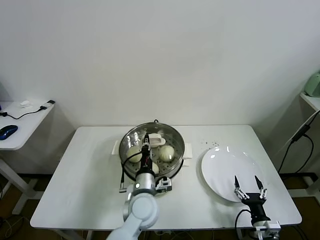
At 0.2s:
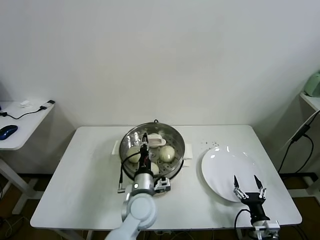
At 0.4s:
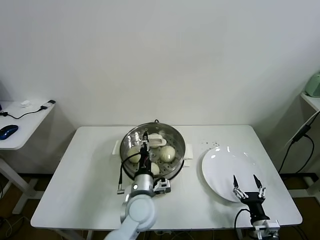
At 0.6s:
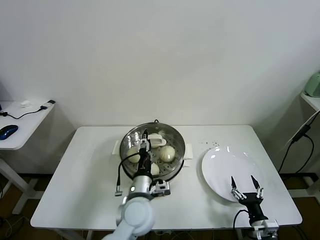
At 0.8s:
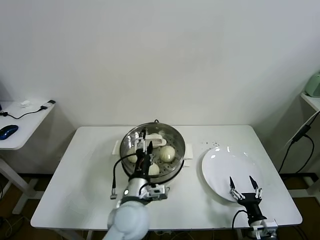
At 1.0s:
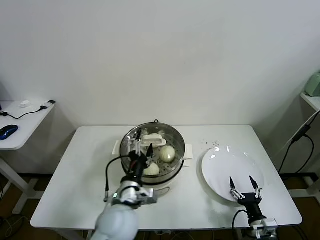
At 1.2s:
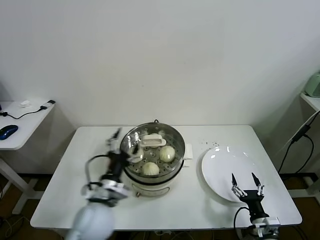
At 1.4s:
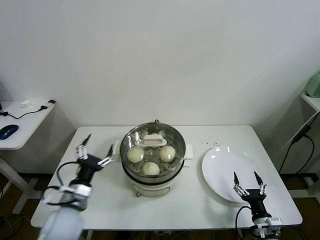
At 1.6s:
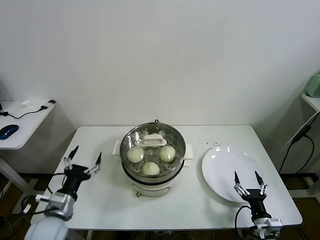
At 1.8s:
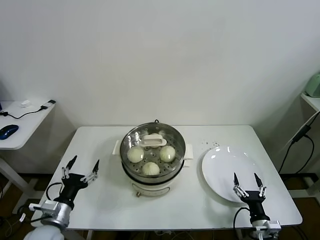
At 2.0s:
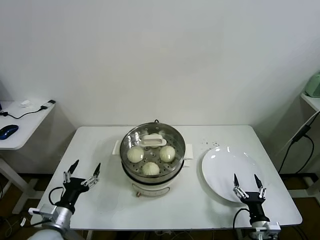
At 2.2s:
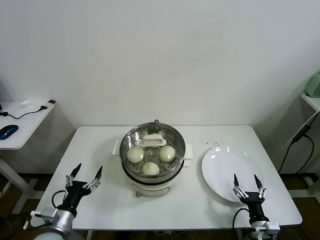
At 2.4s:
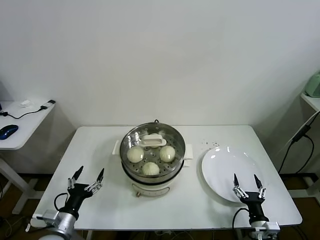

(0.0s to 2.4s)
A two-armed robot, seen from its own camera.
Task of the whole recording: take steamed baozi put them in steamer.
0.0s - 1.2s: The left gripper shifts approximately 10 cm to the left, upward and backward, and opens.
1.2s - 2.4s: The left gripper moves to the left and downward, some 20 cm.
